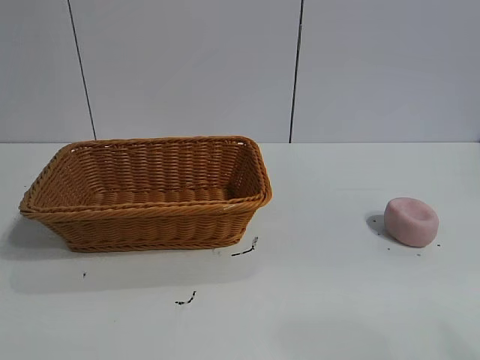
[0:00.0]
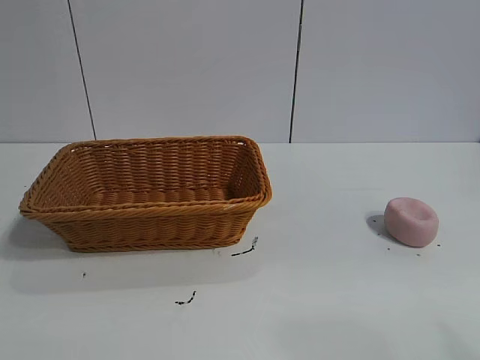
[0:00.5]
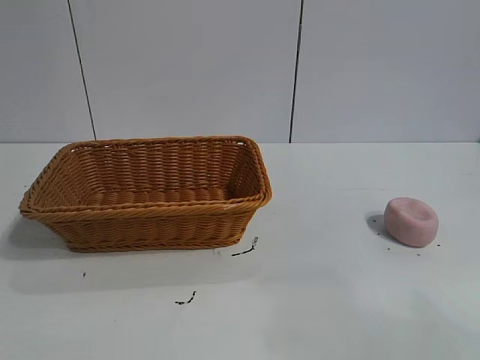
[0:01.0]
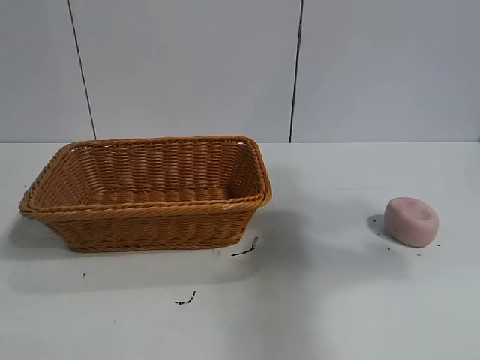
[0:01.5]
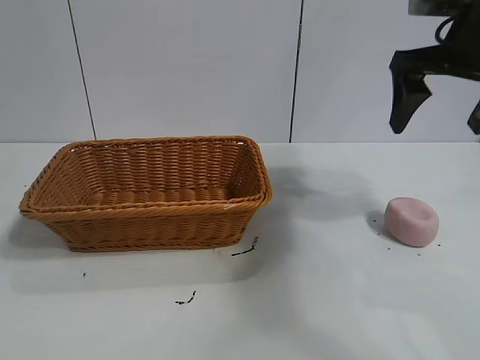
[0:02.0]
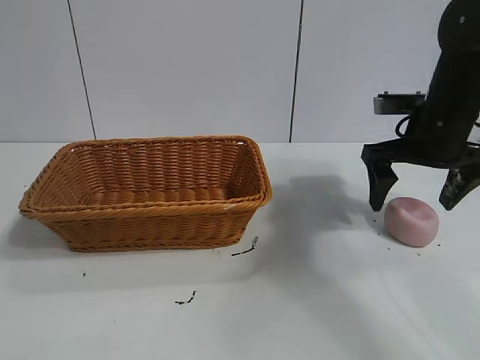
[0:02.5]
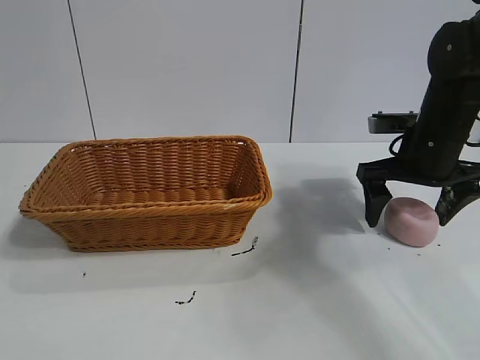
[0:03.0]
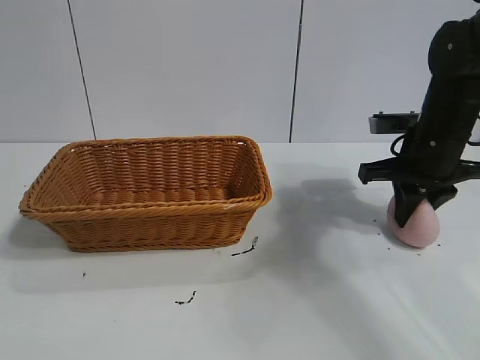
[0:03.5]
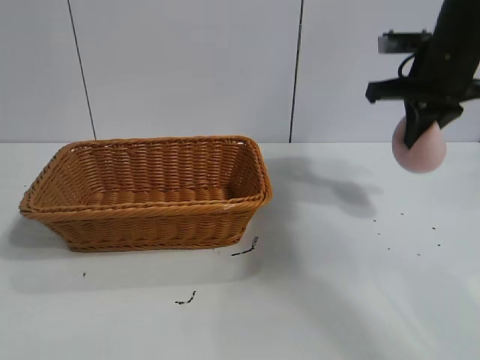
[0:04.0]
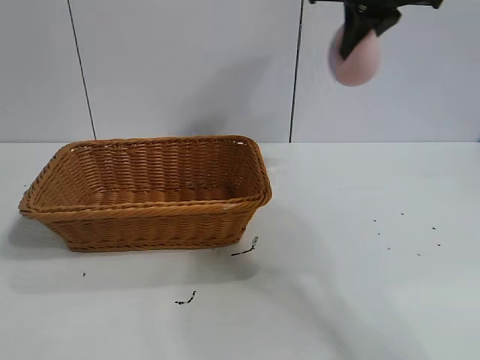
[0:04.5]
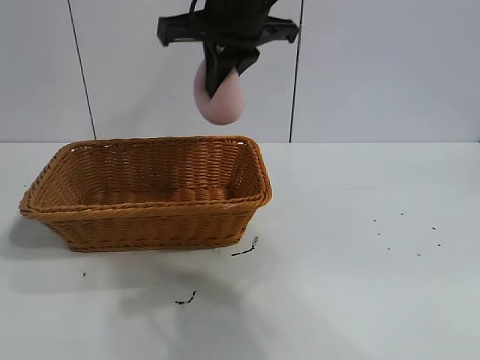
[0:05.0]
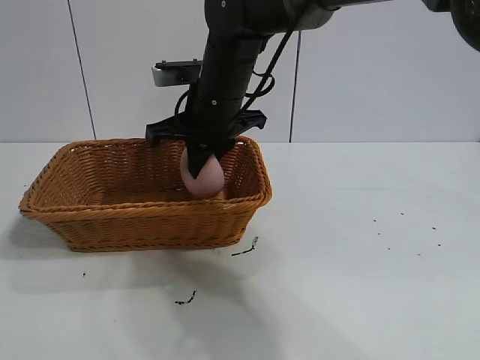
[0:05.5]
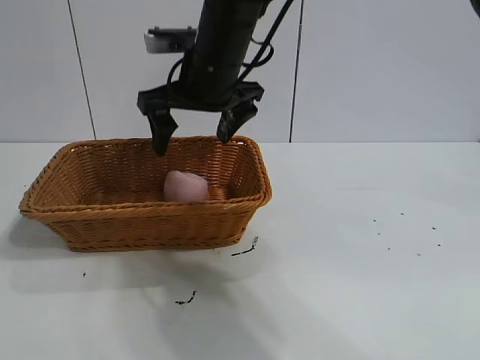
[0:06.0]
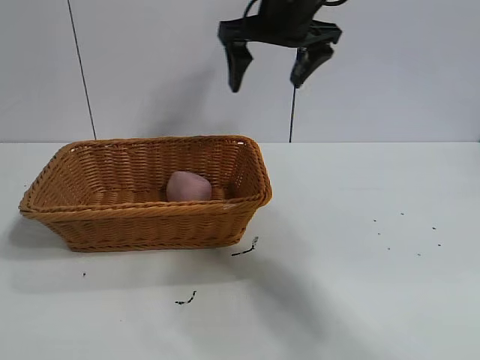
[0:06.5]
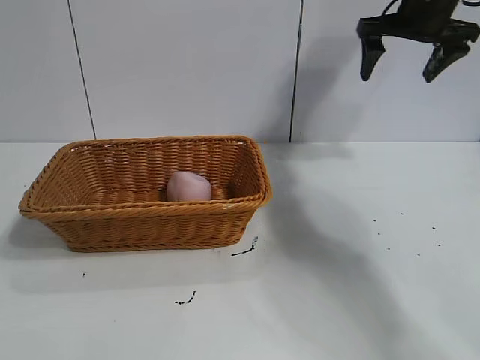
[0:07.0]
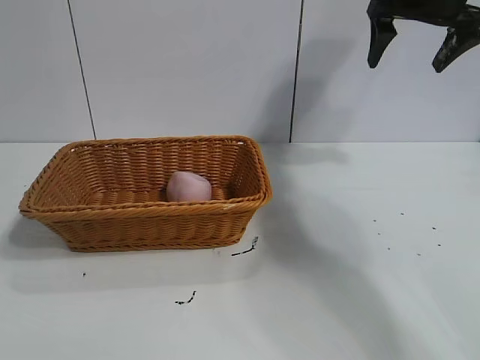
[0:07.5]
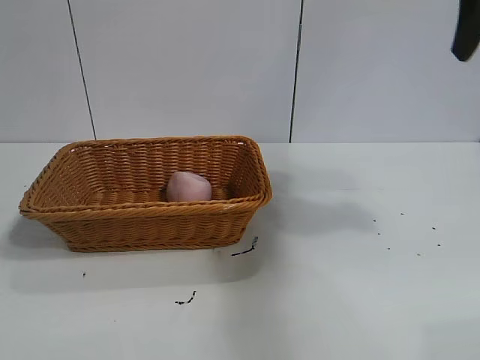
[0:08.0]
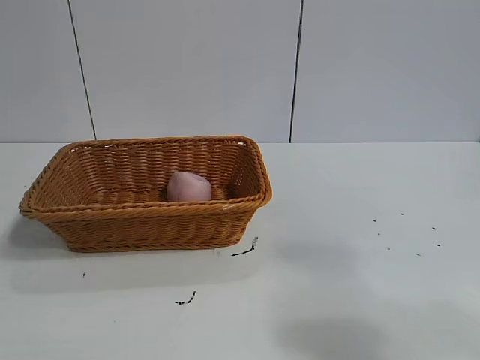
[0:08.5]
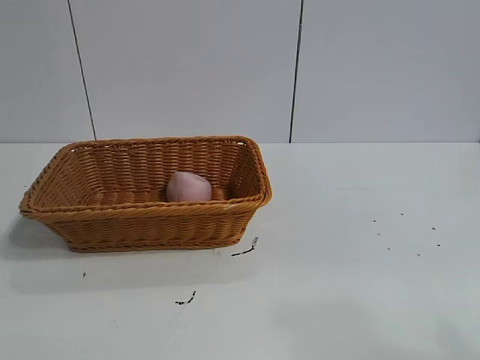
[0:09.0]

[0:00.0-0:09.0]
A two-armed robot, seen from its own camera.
Task of the whole recording: pick up the peach and put it into the basket.
Step, 0:01.0 to 0:03.5: Grasp the peach with right gripper.
Step, 0:04.0 to 0:05.5: Place the peach in the basket with right gripper.
